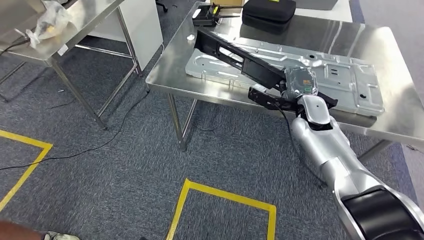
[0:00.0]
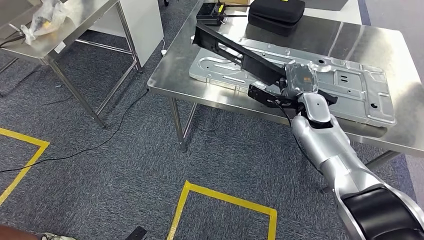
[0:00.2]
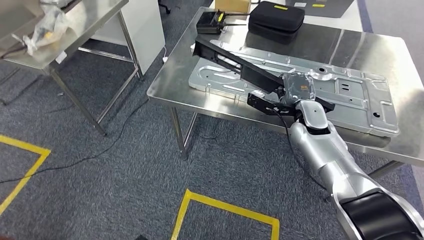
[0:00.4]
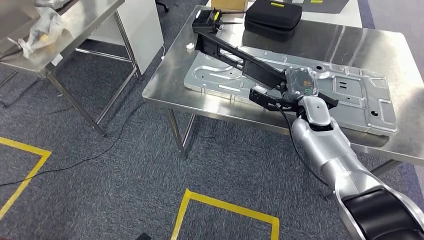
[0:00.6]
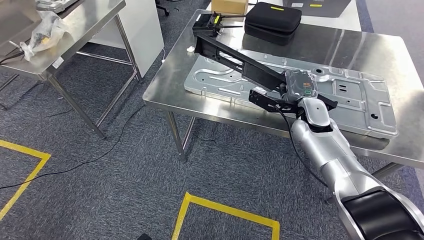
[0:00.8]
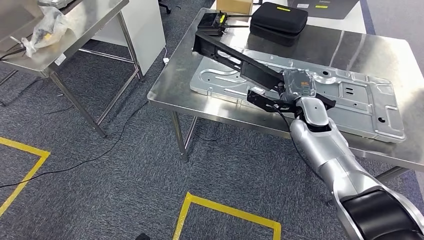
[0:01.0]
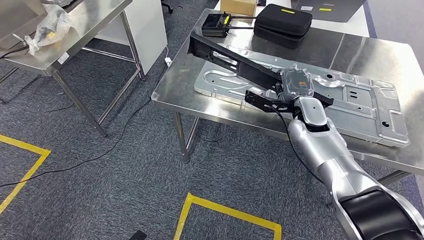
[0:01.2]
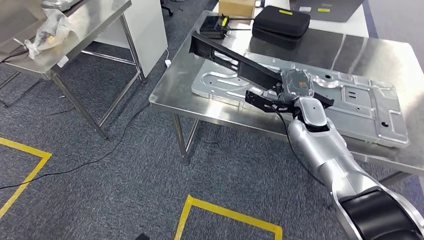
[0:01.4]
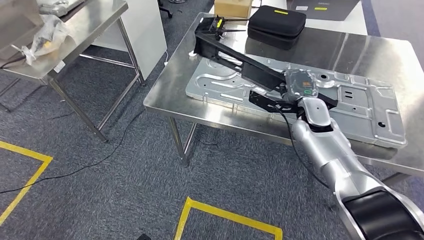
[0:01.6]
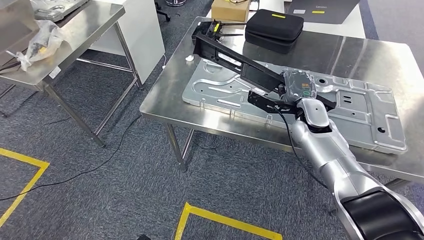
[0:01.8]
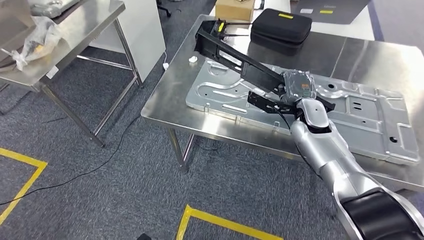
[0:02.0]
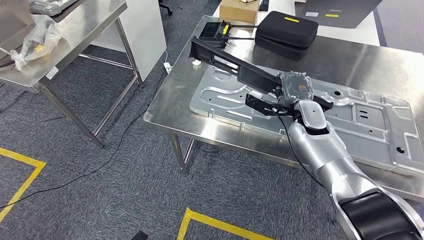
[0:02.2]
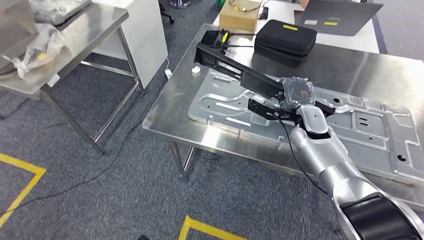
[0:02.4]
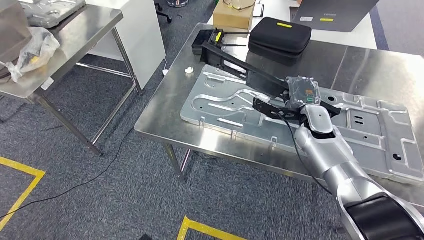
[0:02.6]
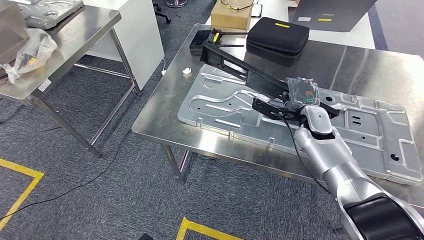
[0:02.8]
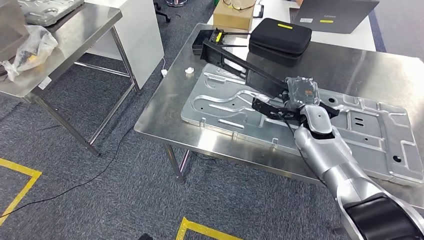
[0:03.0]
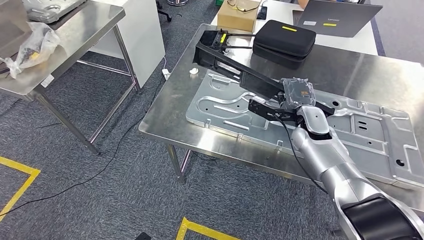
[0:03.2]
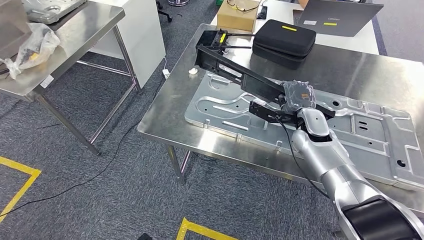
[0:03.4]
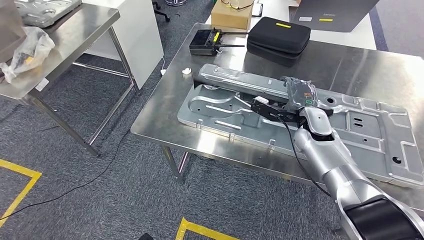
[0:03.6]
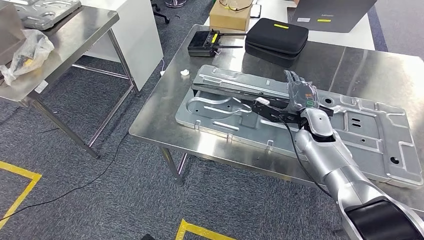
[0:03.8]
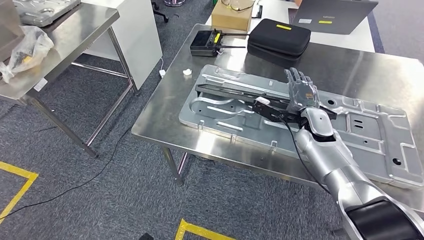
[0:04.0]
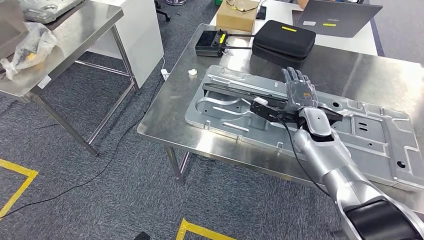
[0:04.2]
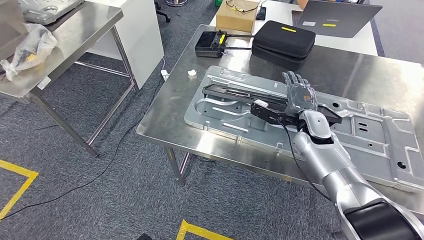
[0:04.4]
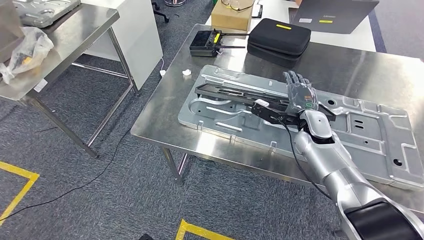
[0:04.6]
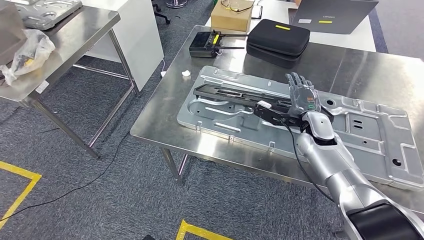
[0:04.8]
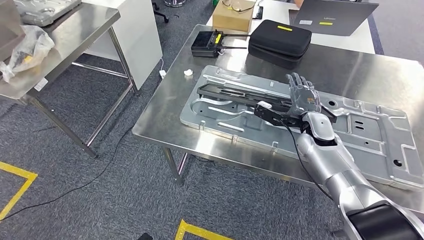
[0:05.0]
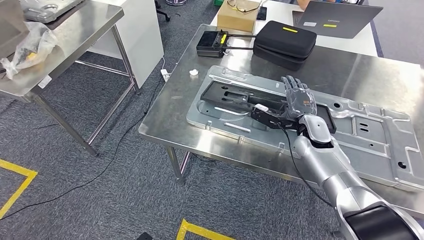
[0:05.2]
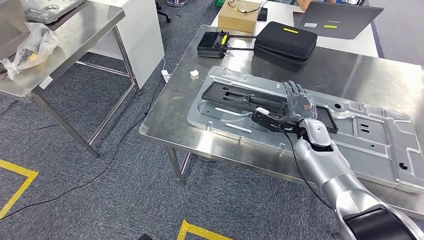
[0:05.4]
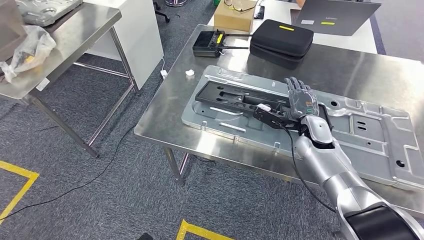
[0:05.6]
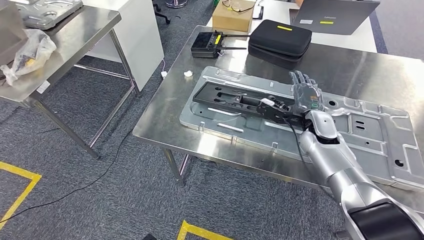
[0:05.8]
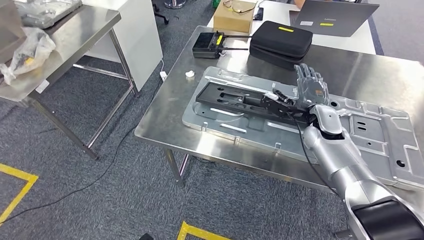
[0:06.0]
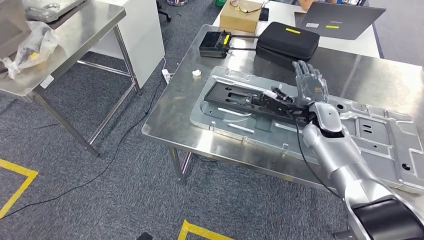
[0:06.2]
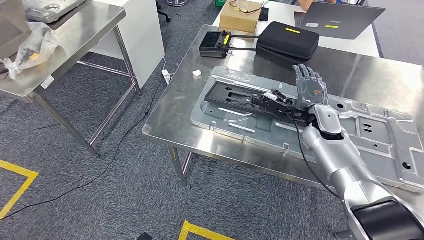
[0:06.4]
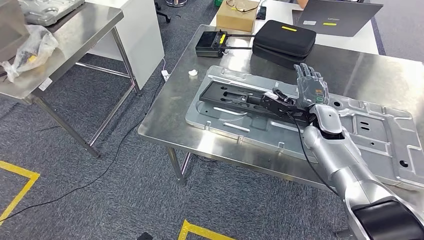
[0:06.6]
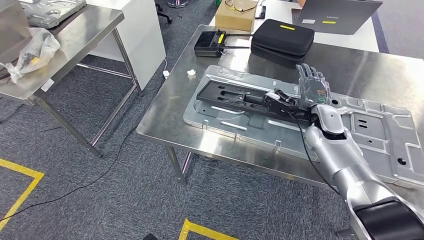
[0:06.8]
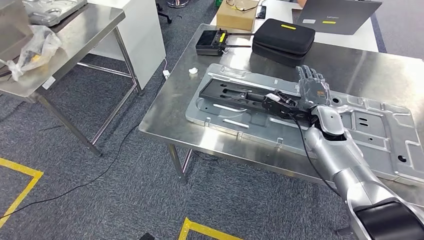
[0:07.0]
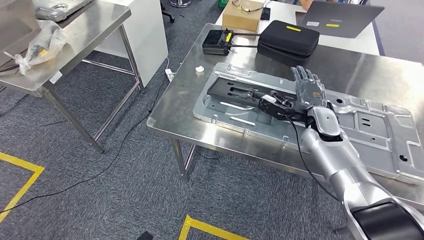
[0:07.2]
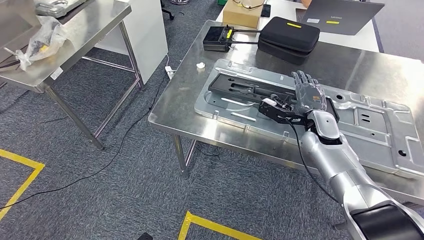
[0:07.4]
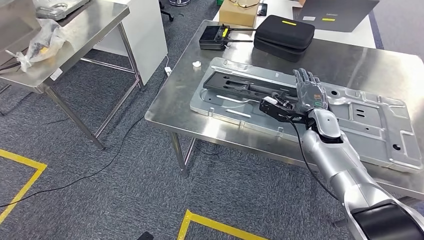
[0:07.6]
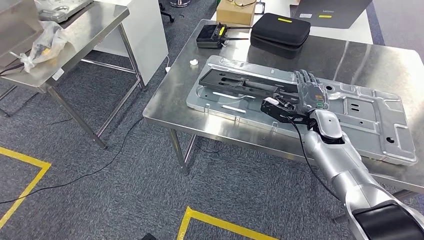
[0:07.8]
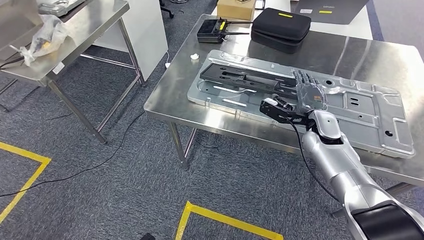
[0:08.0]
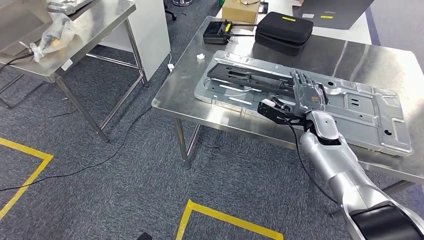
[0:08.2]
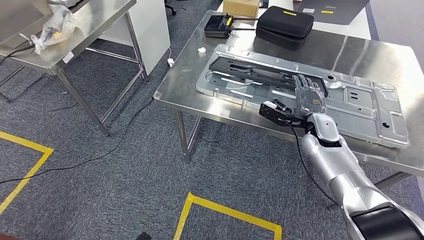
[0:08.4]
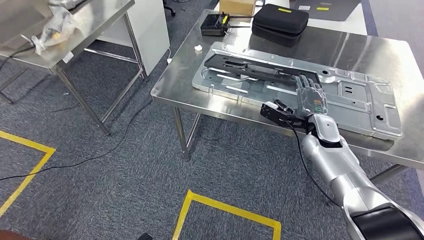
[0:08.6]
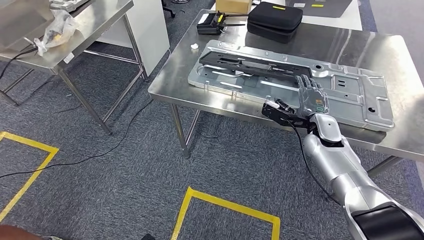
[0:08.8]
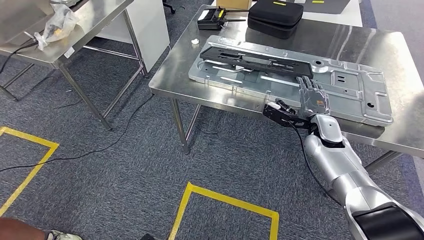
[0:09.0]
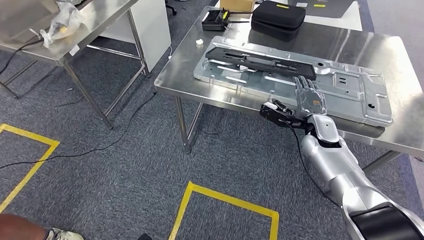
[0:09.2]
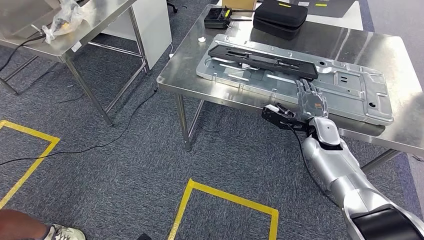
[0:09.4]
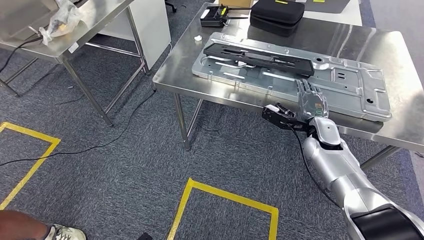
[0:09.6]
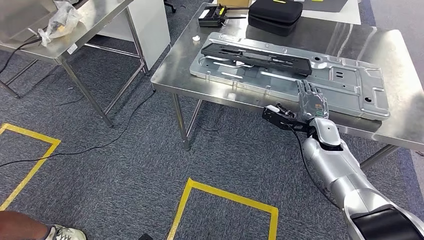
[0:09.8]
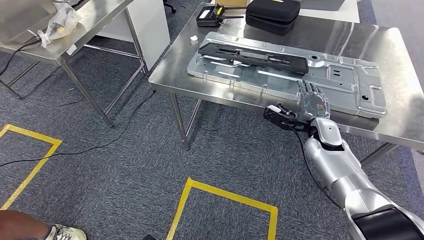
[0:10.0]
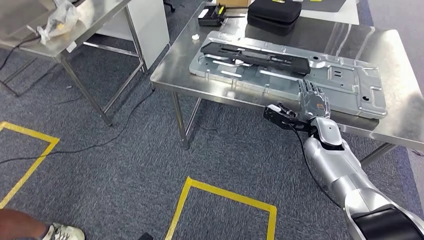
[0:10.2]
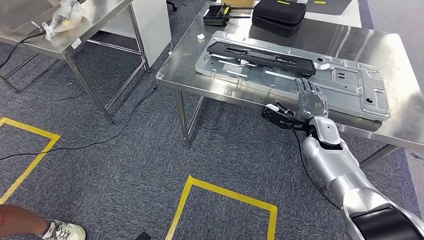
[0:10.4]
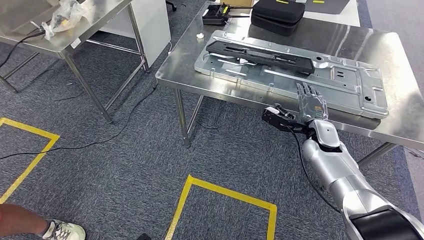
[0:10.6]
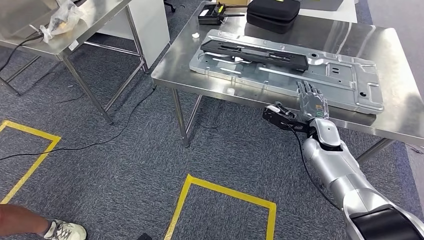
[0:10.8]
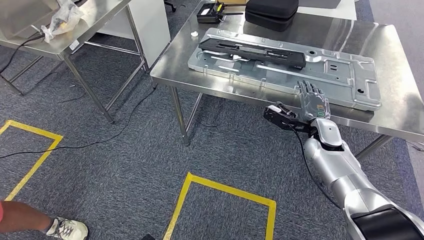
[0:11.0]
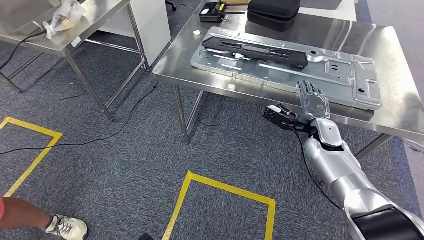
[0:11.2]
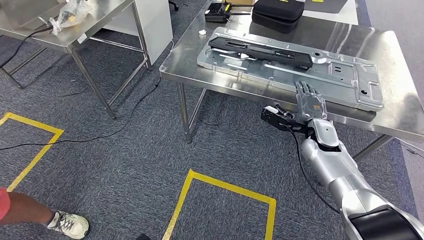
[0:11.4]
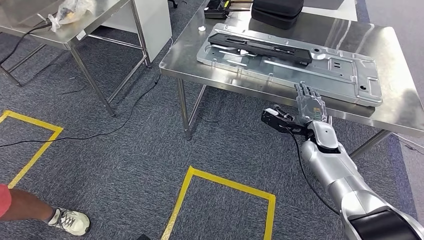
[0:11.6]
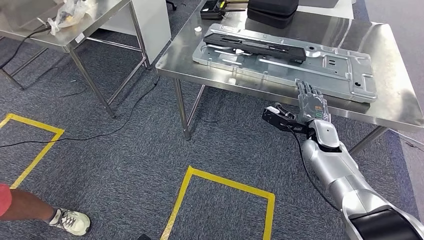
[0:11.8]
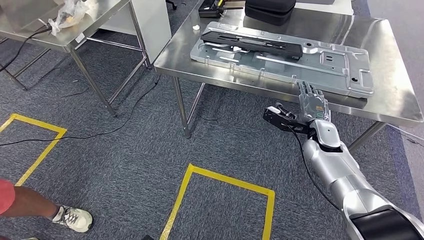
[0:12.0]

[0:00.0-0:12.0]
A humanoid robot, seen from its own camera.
Step, 0:00.4 to 0:07.2: Insert the large material into the corresponding hole on the workbench.
0:04.4 to 0:06.0: The hands make only small movements.

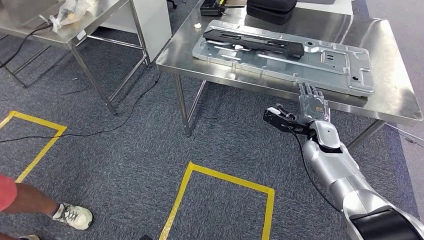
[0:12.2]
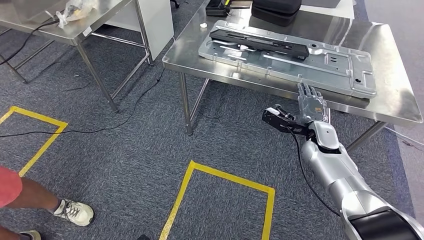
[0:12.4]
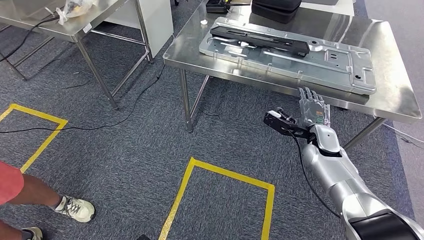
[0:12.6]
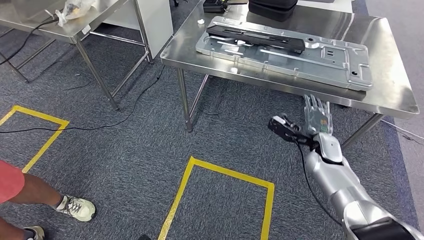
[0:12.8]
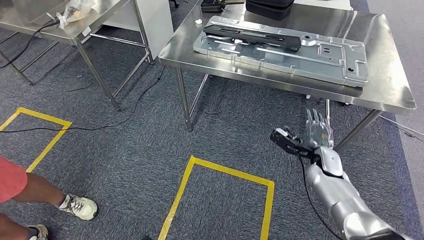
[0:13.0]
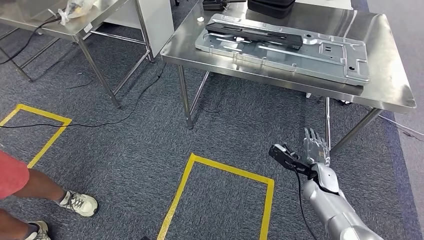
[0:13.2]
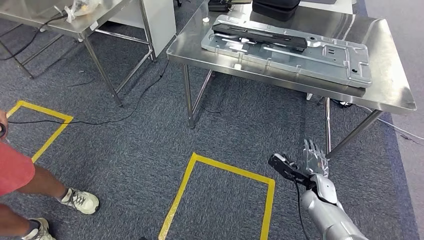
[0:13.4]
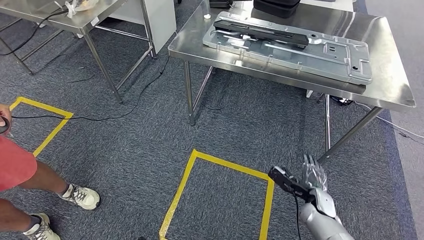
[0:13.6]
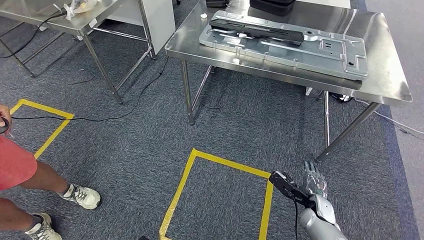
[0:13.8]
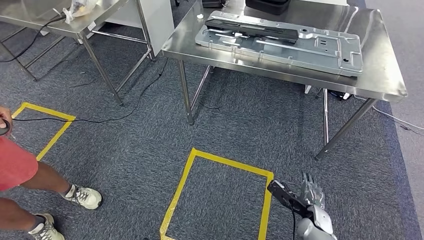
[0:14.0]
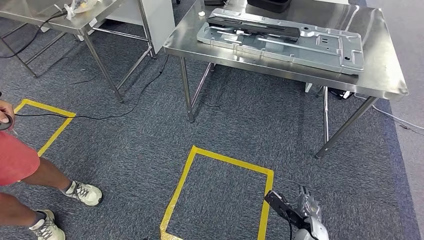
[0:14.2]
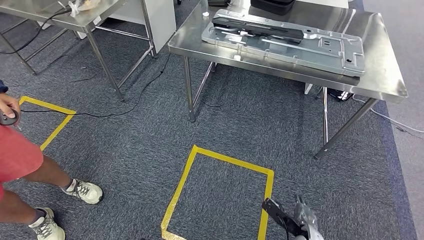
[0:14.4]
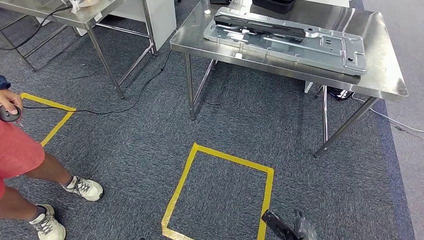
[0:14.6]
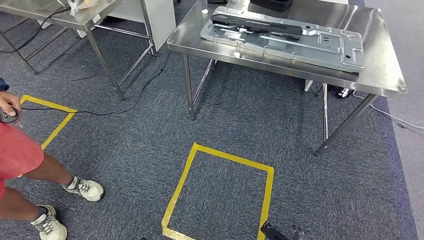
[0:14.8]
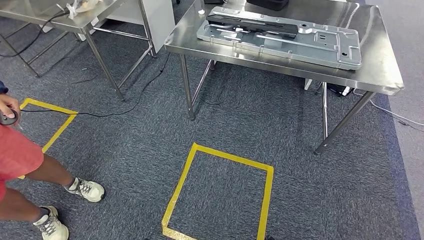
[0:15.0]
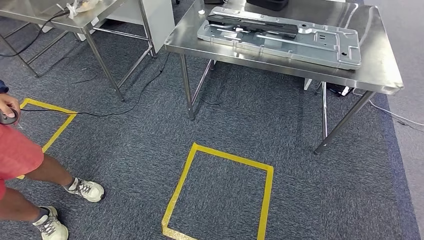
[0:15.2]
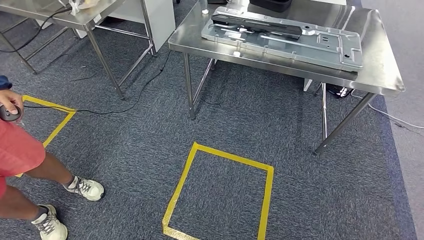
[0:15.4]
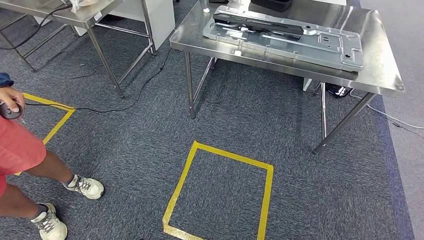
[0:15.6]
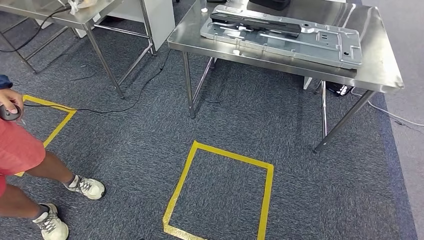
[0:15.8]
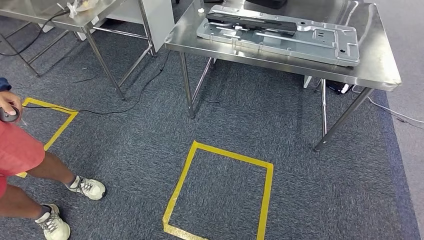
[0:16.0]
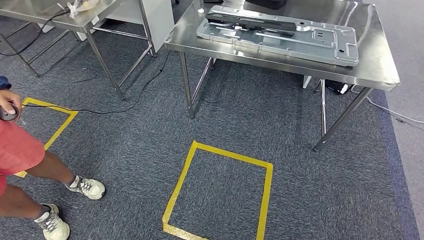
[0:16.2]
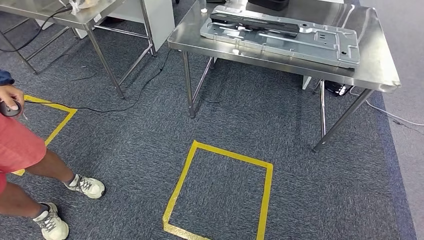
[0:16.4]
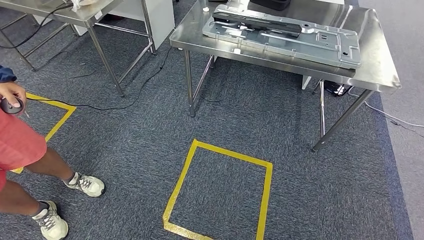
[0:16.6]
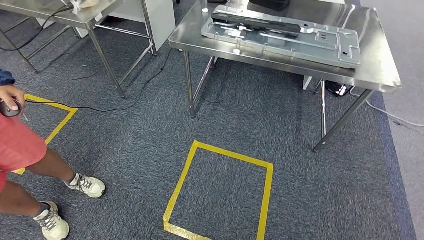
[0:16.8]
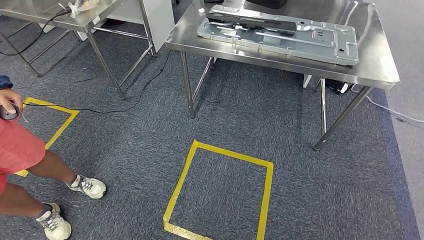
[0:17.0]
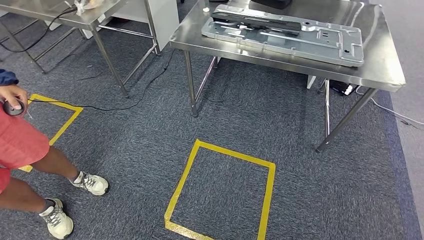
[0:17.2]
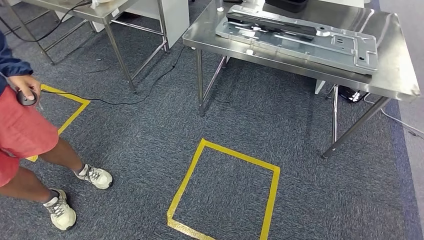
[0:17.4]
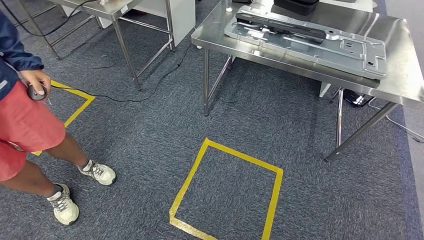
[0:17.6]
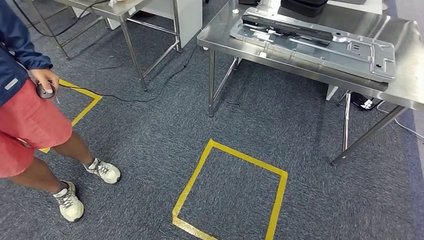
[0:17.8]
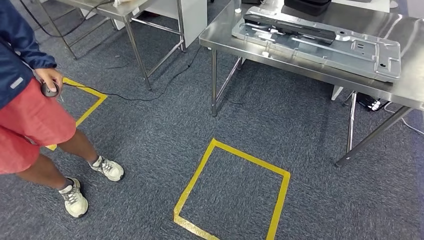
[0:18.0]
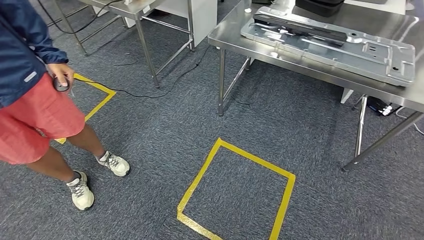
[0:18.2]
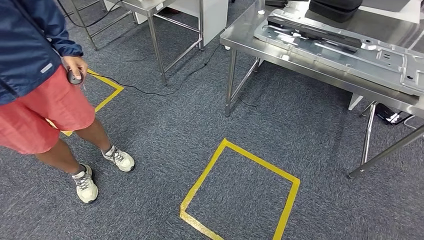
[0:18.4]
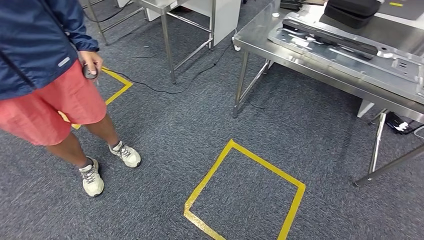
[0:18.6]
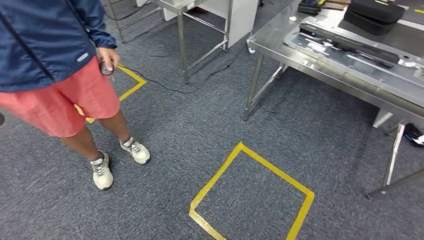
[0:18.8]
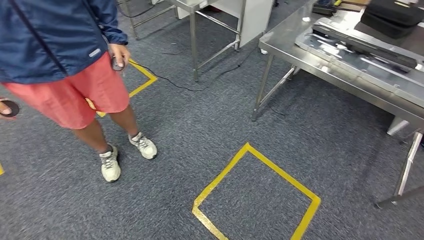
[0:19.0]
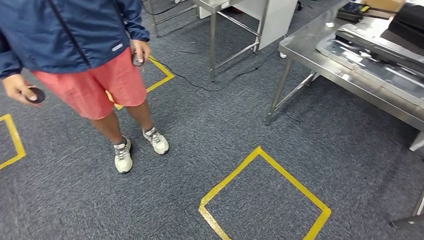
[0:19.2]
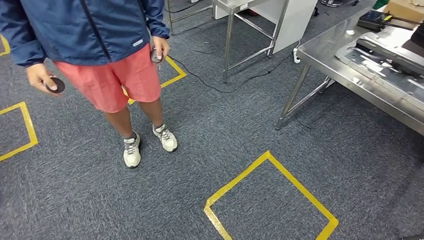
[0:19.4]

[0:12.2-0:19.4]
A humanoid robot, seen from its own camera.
0:15.0 to 0:16.6: The right hand heads backward, covering approximately 10 cm.
